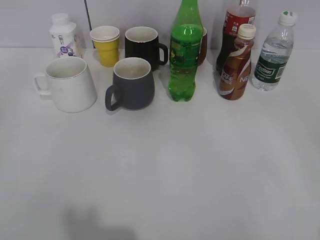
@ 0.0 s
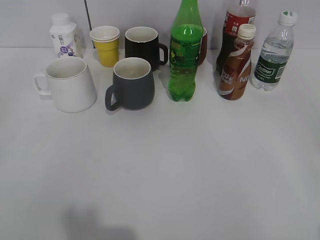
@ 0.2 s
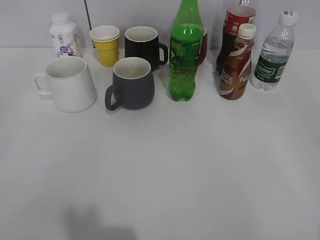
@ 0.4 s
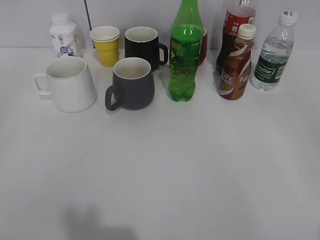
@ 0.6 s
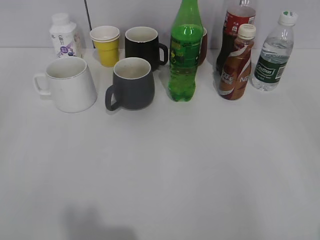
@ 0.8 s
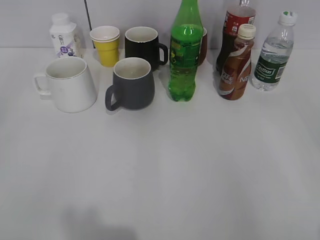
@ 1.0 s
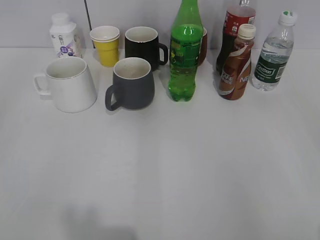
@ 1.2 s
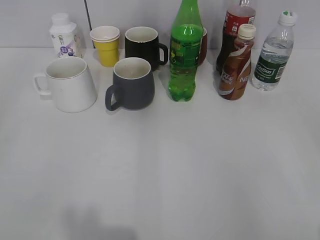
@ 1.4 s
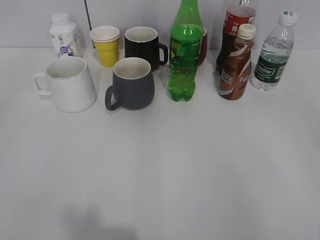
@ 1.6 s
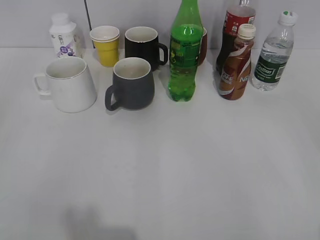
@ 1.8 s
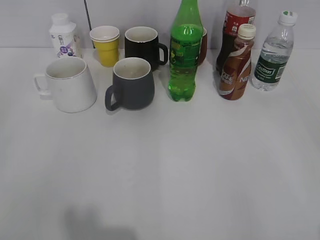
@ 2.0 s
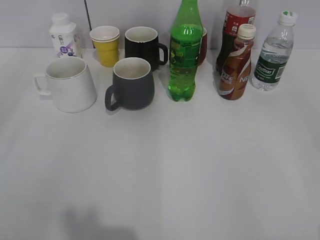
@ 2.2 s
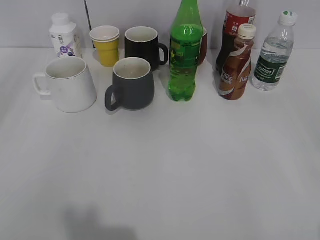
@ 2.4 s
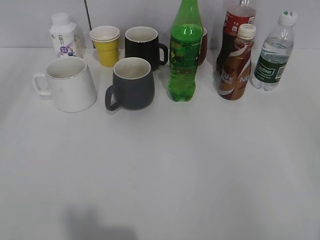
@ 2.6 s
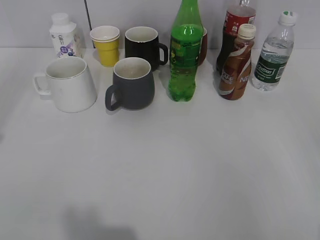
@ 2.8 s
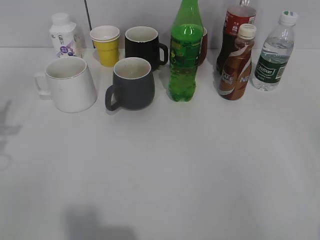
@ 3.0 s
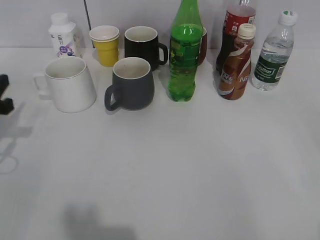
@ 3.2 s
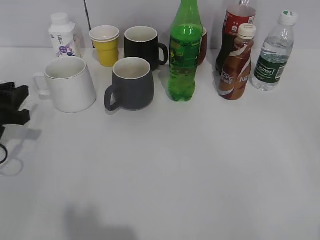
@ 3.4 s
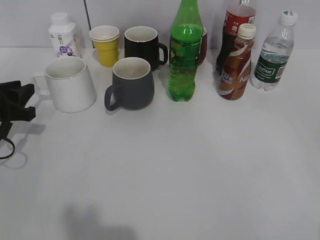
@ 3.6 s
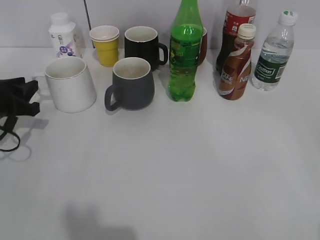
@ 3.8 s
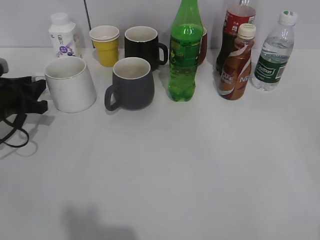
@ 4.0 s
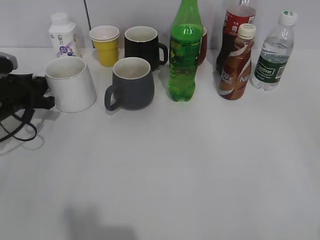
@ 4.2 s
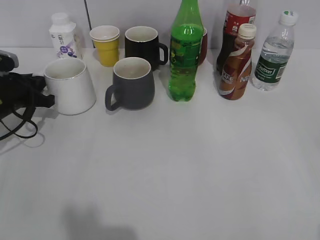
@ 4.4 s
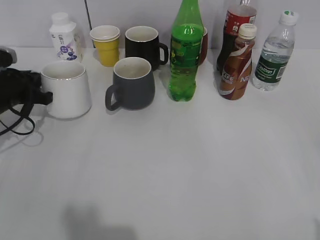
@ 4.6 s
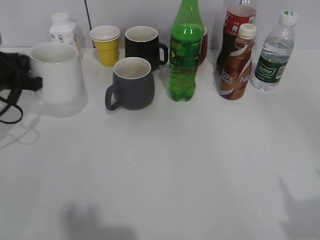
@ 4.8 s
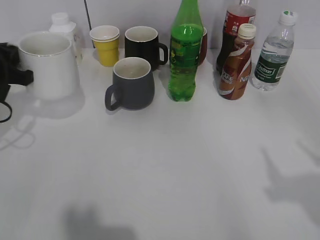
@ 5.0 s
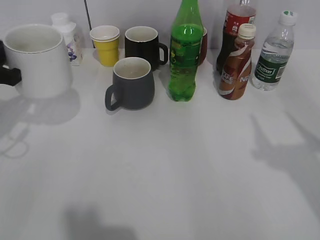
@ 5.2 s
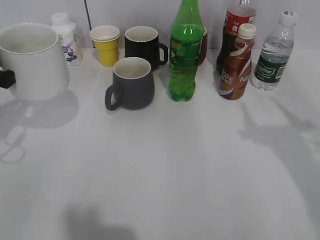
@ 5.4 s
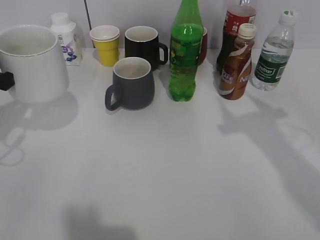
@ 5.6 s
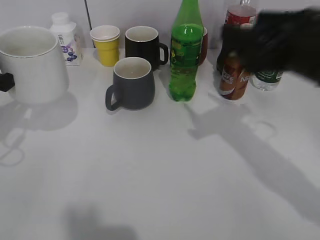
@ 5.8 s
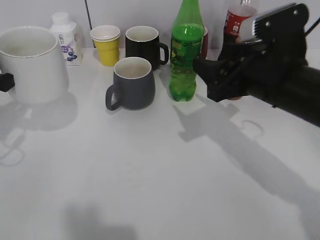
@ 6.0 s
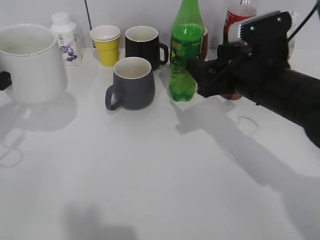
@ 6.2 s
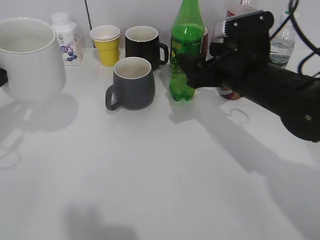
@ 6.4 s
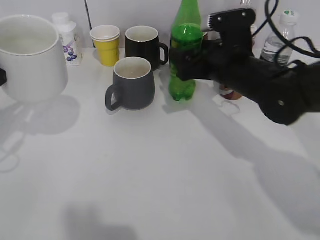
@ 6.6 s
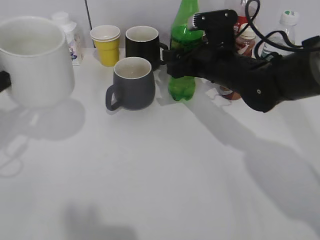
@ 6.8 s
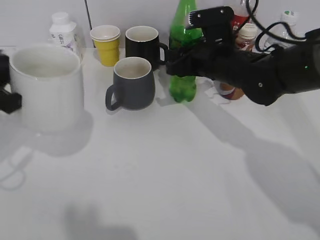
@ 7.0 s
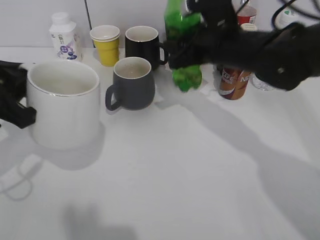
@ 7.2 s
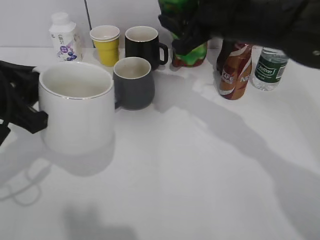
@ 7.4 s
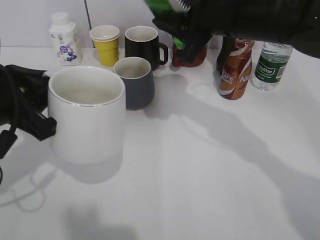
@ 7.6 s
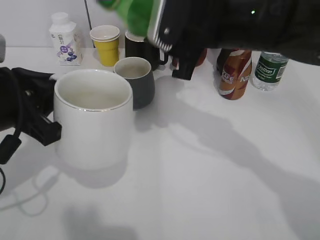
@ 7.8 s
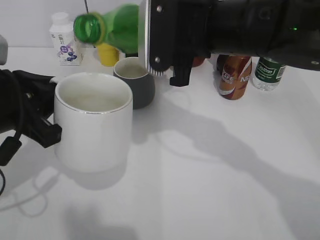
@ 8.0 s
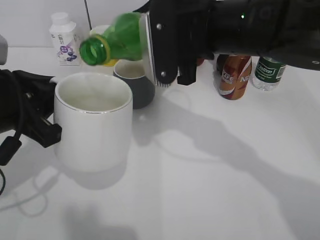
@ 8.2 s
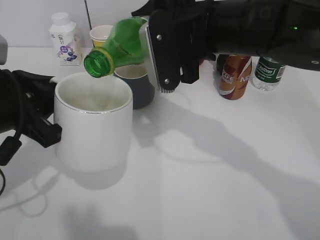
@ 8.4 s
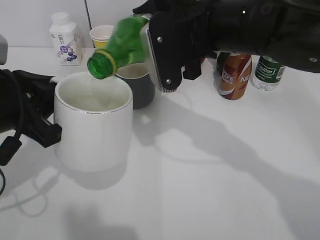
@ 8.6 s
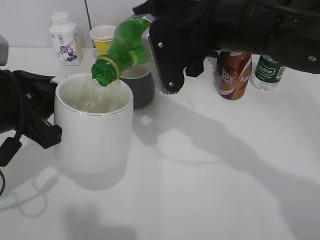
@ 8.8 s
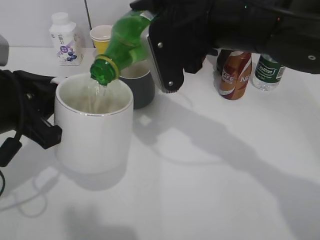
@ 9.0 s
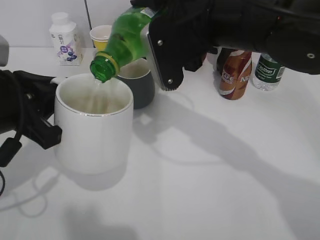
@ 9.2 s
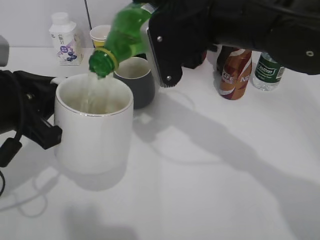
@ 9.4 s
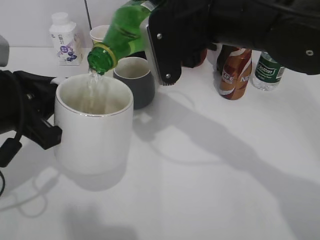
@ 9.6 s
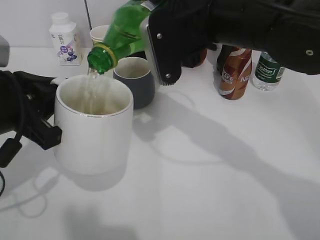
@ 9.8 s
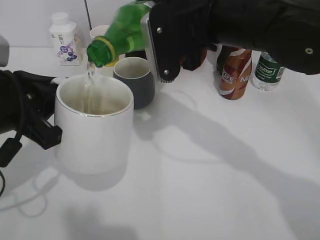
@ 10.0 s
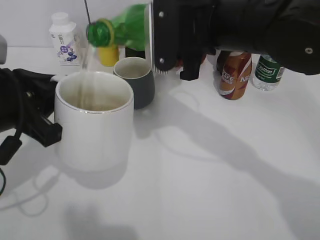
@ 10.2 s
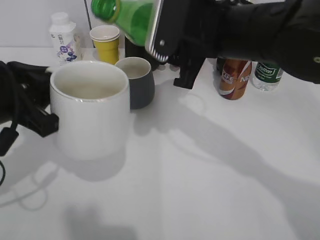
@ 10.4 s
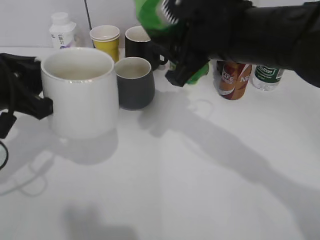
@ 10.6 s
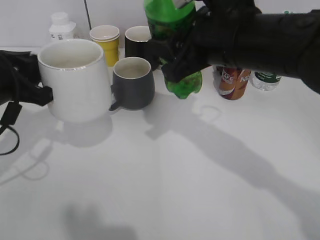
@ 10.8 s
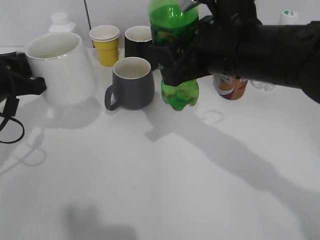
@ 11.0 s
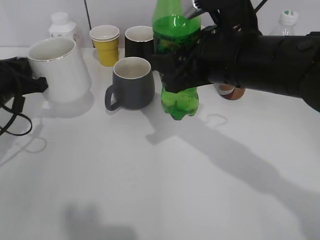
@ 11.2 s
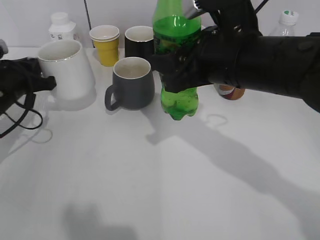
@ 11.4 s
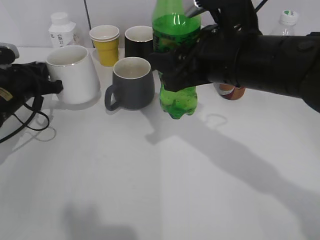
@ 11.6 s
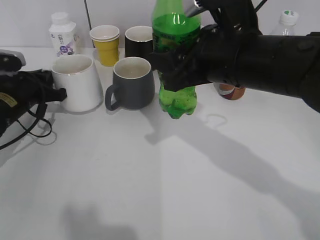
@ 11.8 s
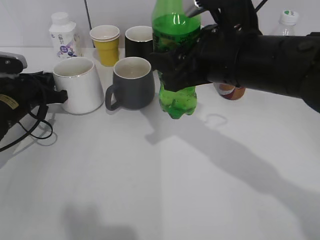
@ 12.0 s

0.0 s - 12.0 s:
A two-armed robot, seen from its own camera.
Step, 2.0 s - 4.4 s: Grasp the white cup with left gripper.
Step, 4.6 s - 5.4 s: Lift the white cup with left gripper.
Step, 5.6 s - 6.8 s: Grasp the bottle with sprite with right gripper.
Step, 7.0 s - 10.2 s: Pour the sprite from bottle to cup with right gripper.
3.0 s - 4.4 s: The left gripper moves forward and downward, about 15 cm.
4.4 s - 6.0 s: The right gripper heads forward and to the left, covering roughly 30 cm. The left gripper goes some 15 cm upward and backward.
6.0 s - 7.6 s: The right gripper moves upward, to the left and forward, roughly 10 cm, and closes, while the left gripper heads to the right and backward, covering about 10 cm.
10.4 s - 12.0 s: The left gripper goes roughly 20 cm forward and downward.

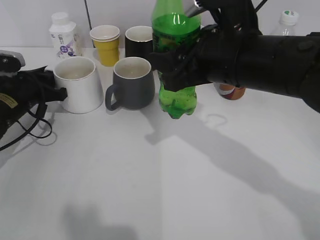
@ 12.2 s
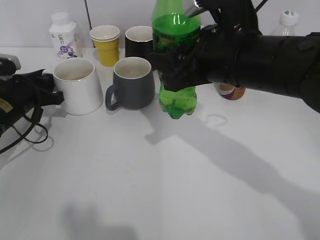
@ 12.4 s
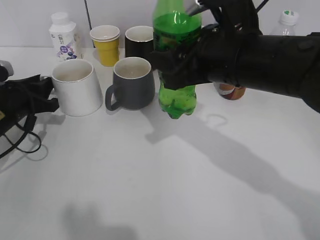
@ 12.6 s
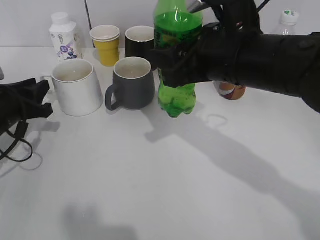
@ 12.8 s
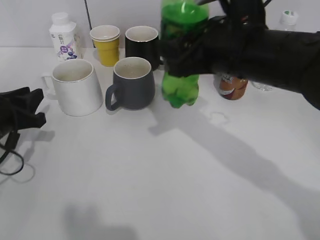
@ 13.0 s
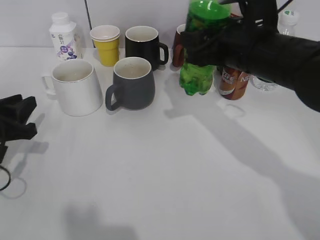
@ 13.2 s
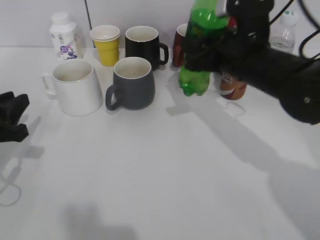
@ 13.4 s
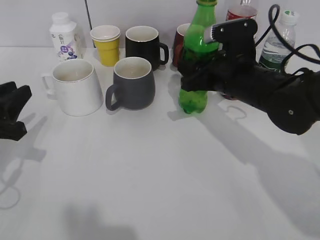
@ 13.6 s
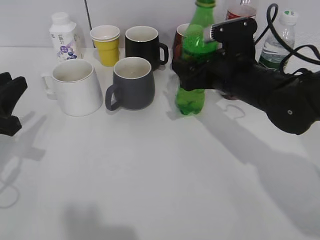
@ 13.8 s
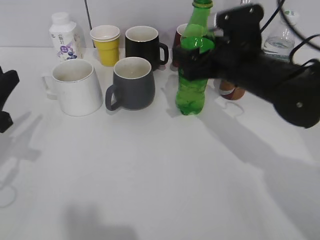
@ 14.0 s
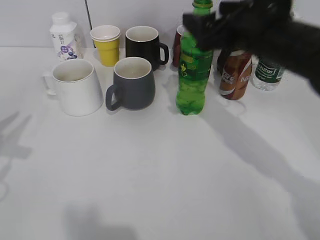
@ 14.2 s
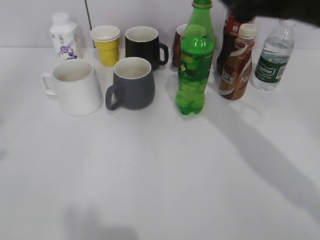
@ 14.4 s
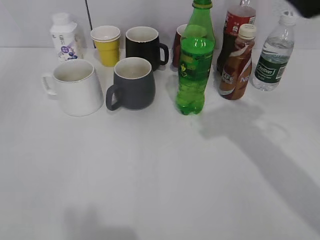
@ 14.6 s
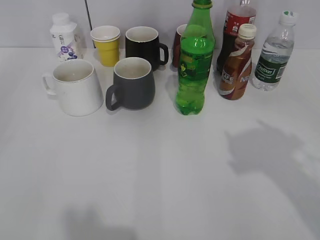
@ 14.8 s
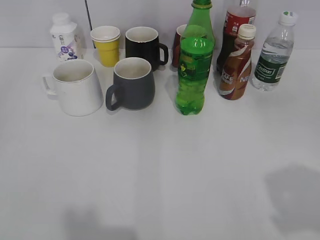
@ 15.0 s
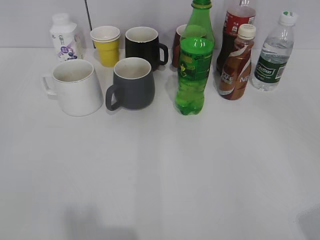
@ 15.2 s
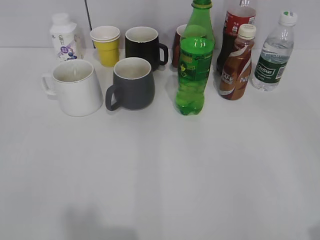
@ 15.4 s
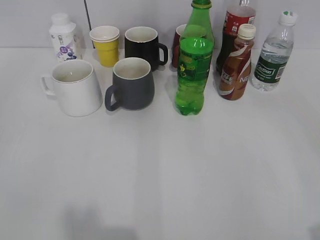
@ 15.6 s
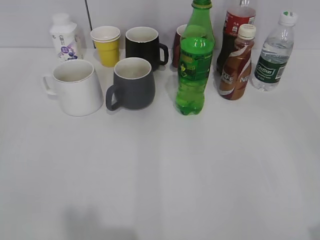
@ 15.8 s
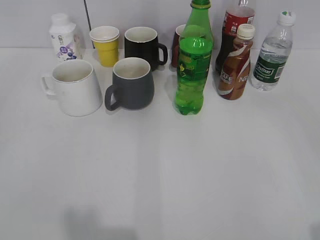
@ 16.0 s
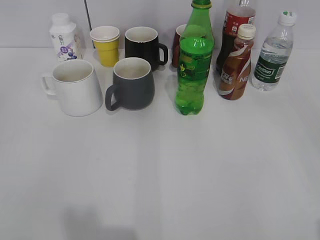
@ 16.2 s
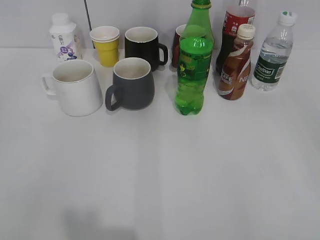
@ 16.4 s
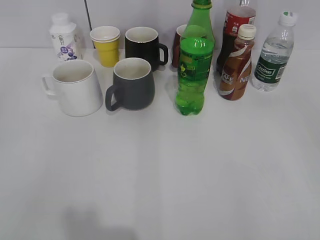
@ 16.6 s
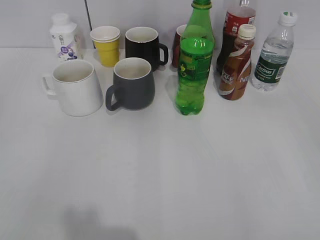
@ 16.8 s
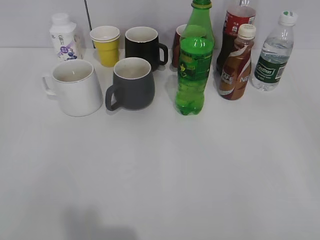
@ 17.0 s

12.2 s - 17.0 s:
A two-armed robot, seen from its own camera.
Step, 12.6 s - 14.0 s: Place the sprite bottle on the table with right gripper.
12.2 s - 13.8 s: The left gripper shifts roughly 15 cm backward and upward. Meanwhile the right gripper goes about 10 cm downward and forward, and opens its fingers.
13.8 s - 15.4 s: The left gripper moves backward and upward, some 25 cm, and opens up, while the right gripper moves backward and to the right, about 35 cm.
